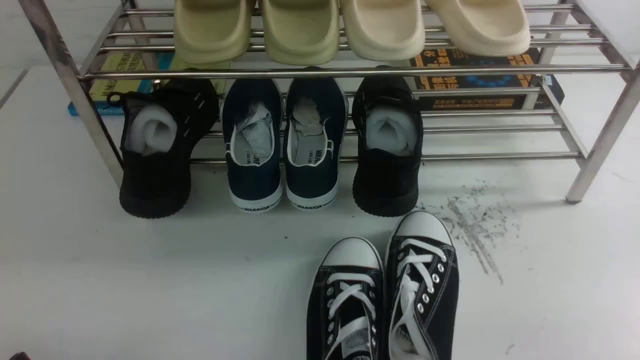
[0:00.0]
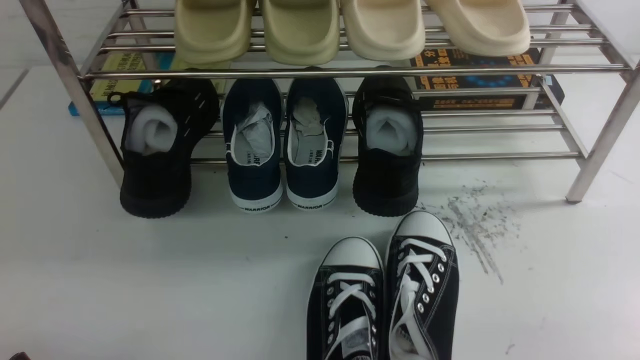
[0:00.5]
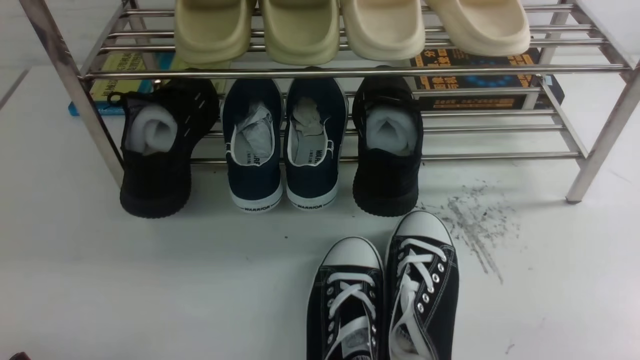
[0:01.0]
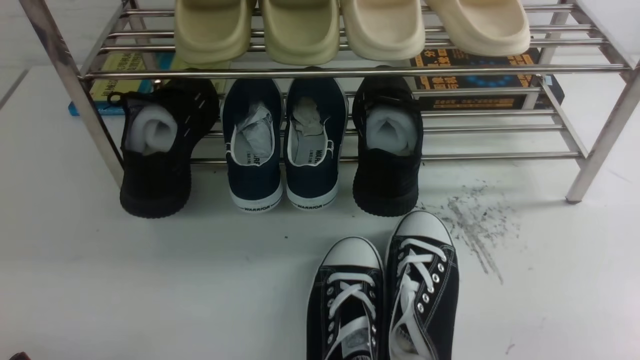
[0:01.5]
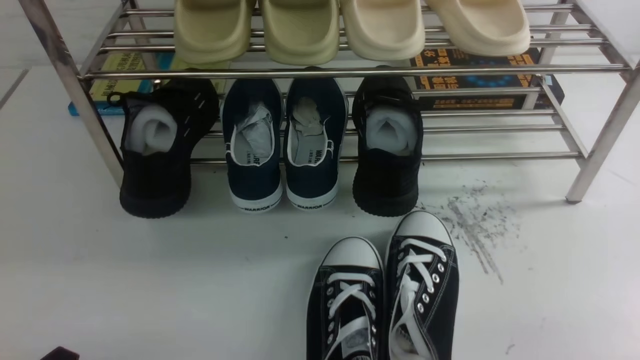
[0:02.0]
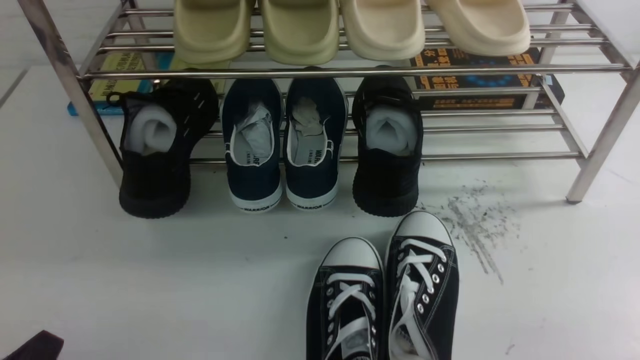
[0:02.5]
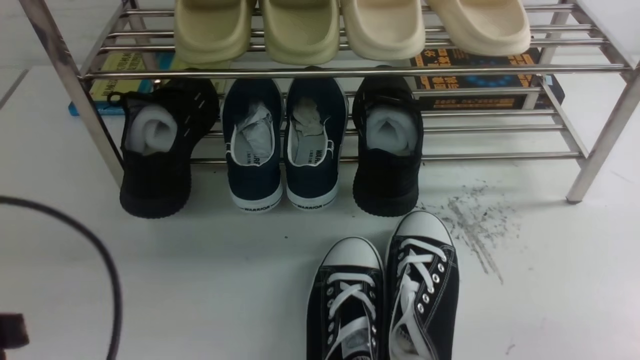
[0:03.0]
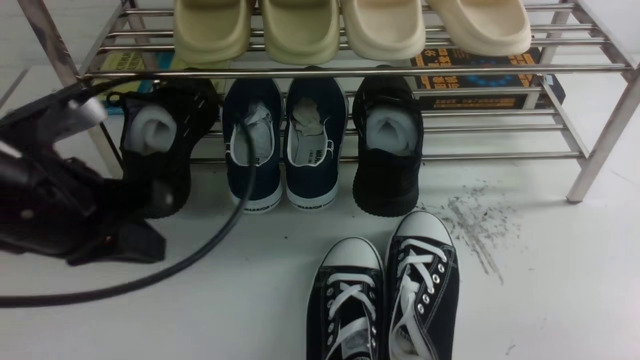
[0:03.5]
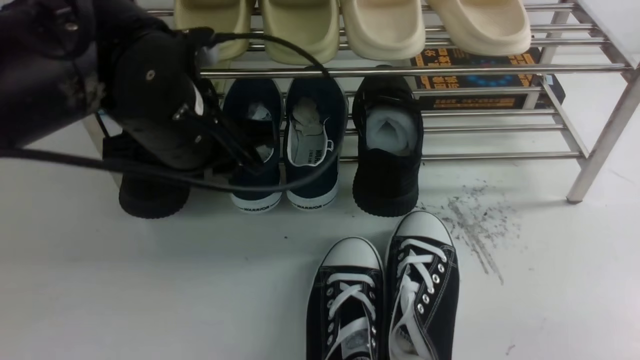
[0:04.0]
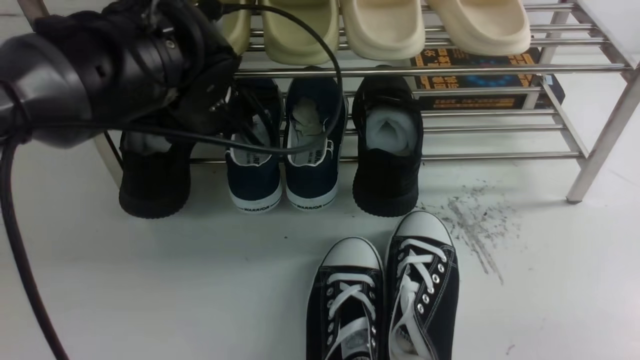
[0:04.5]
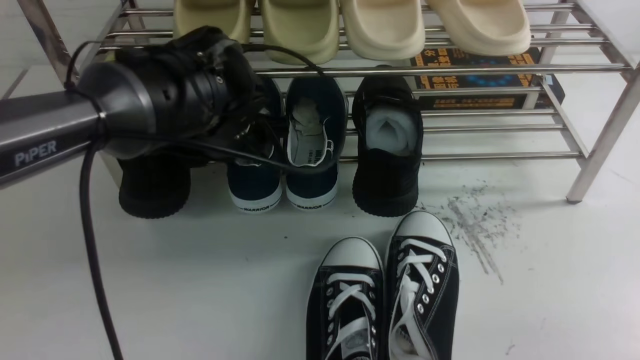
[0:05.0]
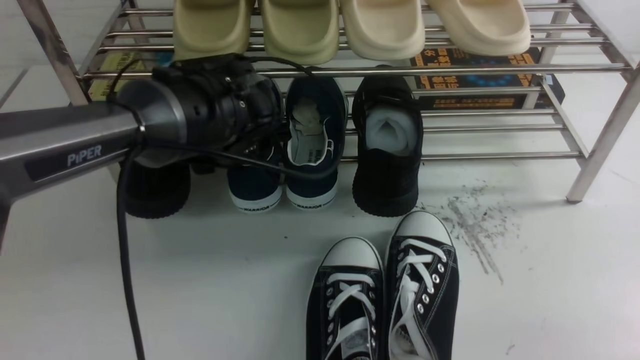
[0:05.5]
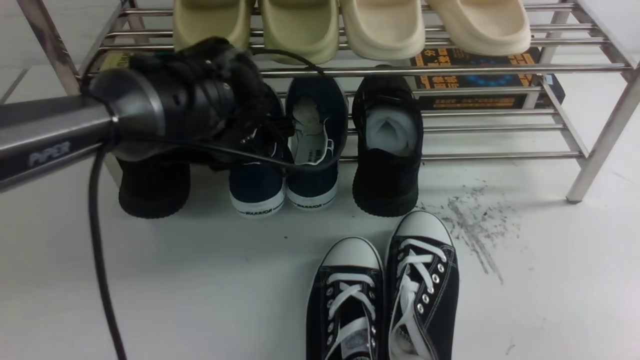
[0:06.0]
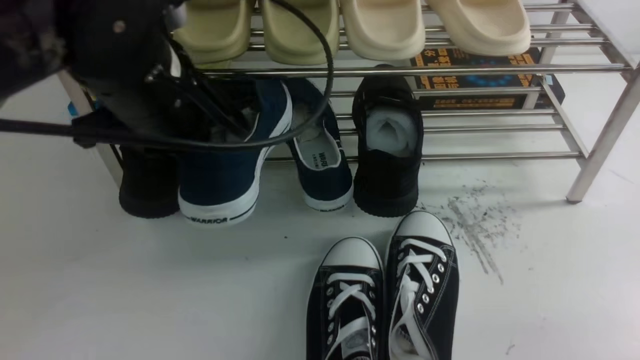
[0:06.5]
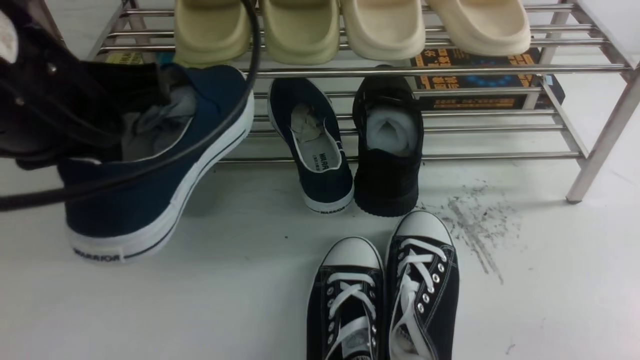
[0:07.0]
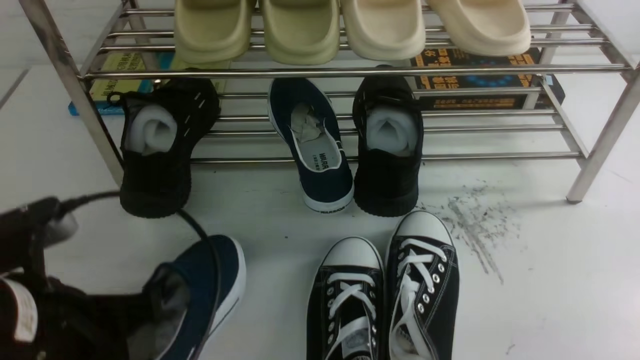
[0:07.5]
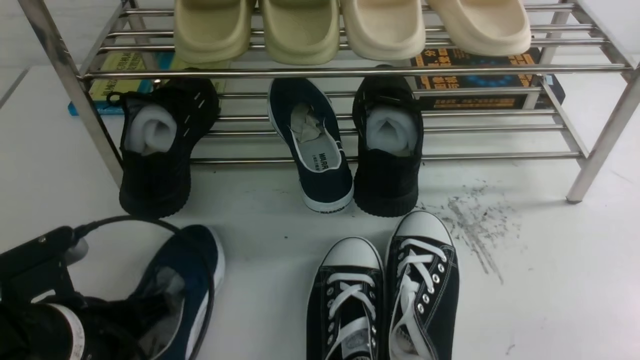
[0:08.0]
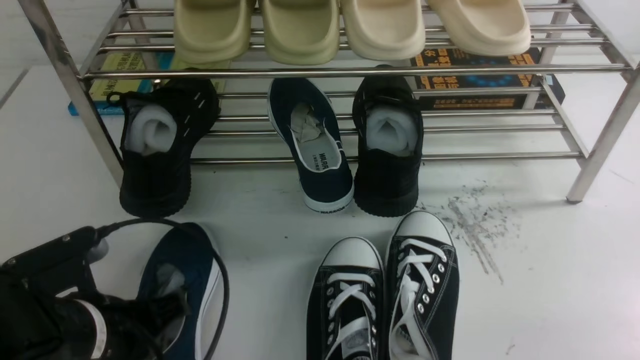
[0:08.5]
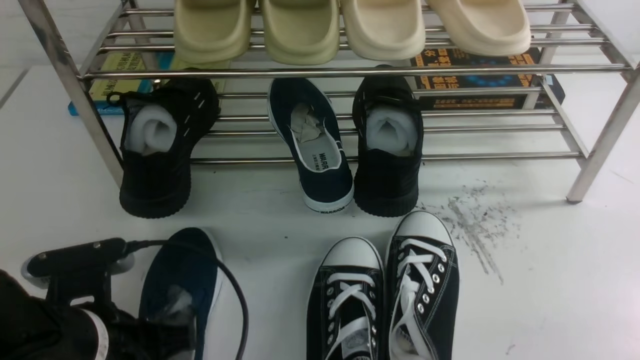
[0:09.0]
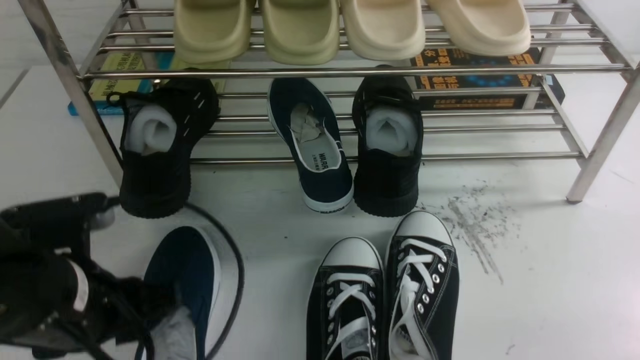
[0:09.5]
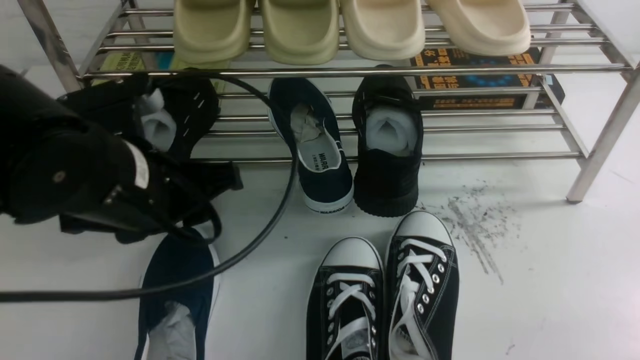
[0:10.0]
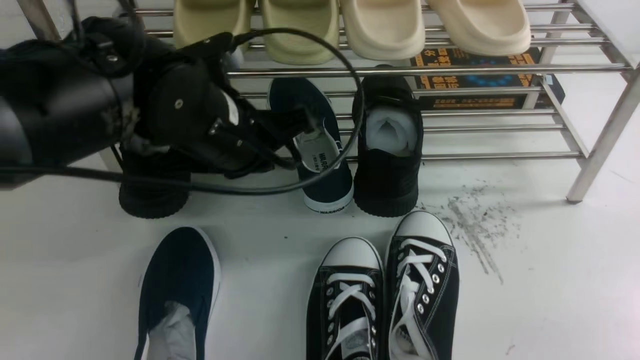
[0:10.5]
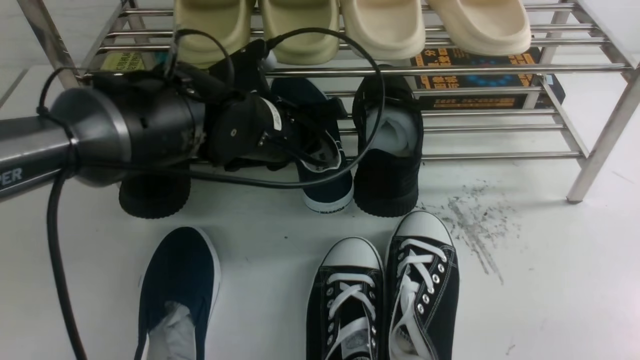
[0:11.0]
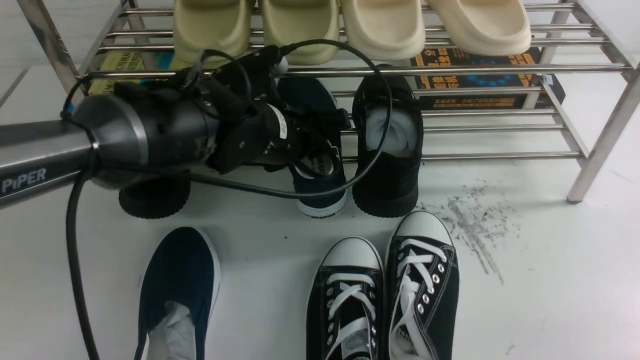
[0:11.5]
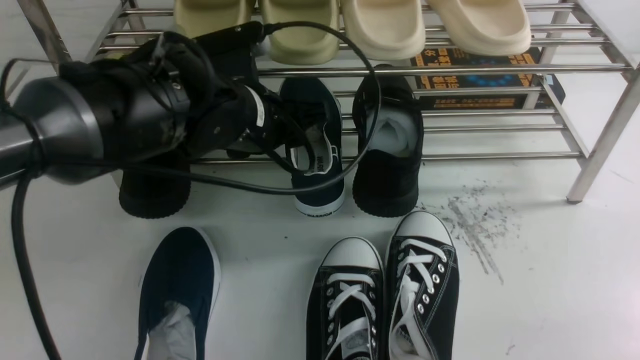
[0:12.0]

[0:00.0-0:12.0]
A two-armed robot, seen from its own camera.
Step, 0:00.0 to 0:06.0: use the left arm to clamp a shoe on the left side of the shoe rack.
Step, 0:06.5 to 0:09.5: Use your left arm to remove the clamped shoe from the shoe rack and put it down.
0:02.0 to 0:04.0: The left gripper moves forward, upward and to the right, some 30 cm, and closes and opens again.
0:04.0 to 0:06.0: The left gripper moves forward and downward, approximately 10 cm, and closes up.
0:06.0 to 0:08.0: The left gripper travels backward and to the left by about 20 cm.
0:08.0 to 0:10.0: The left gripper moves upward, forward and to the right, approximately 15 cm, and opens its fingers.
0:10.0 to 0:12.0: The left gripper goes about 10 cm forward and to the right, and closes and opens again.

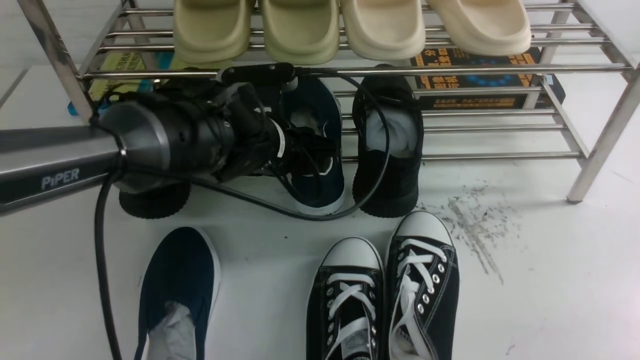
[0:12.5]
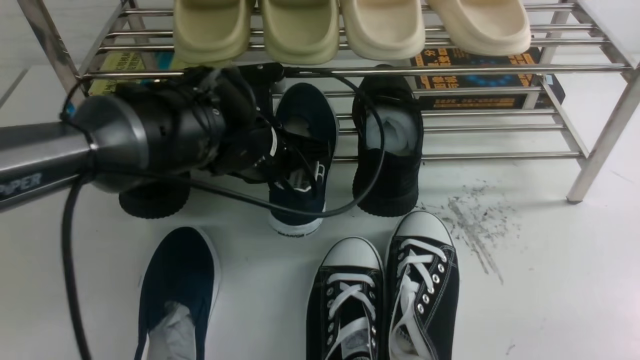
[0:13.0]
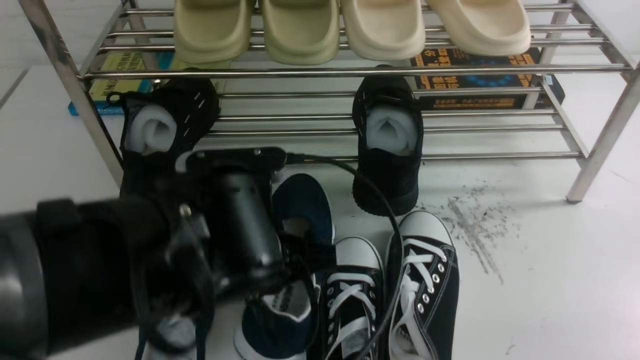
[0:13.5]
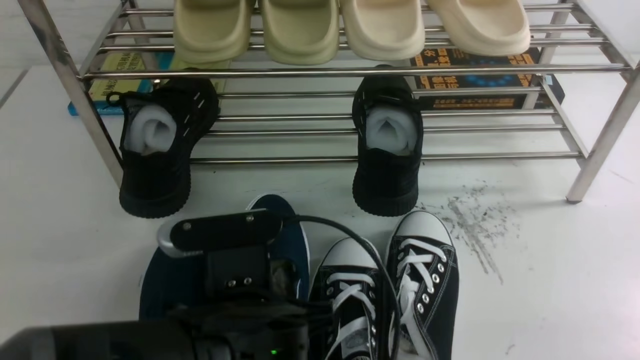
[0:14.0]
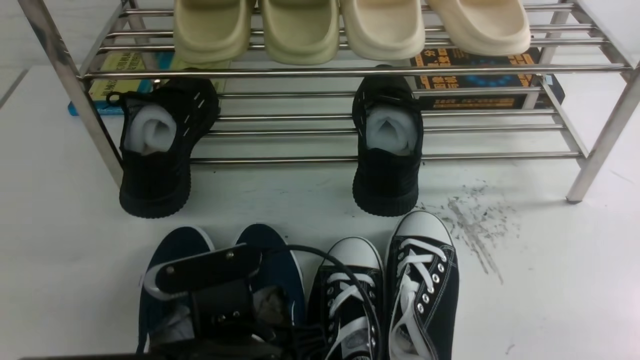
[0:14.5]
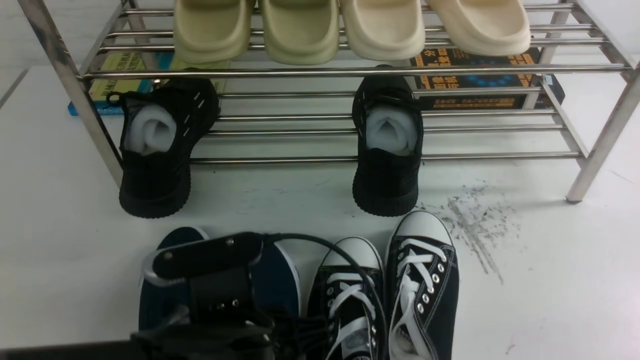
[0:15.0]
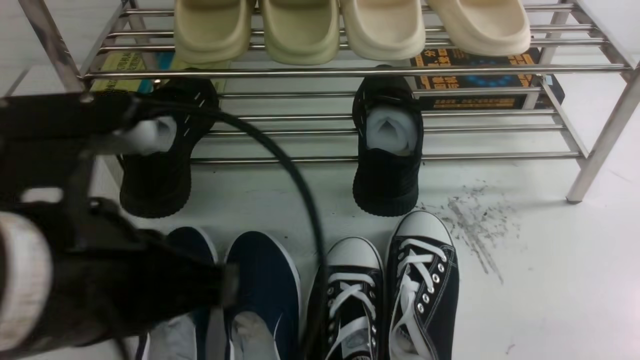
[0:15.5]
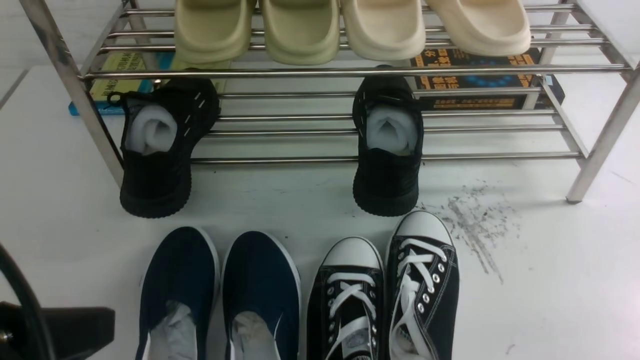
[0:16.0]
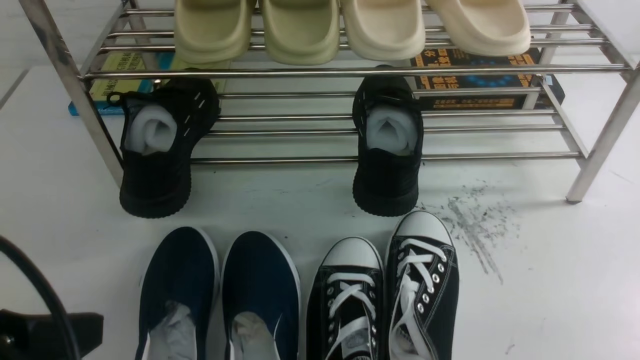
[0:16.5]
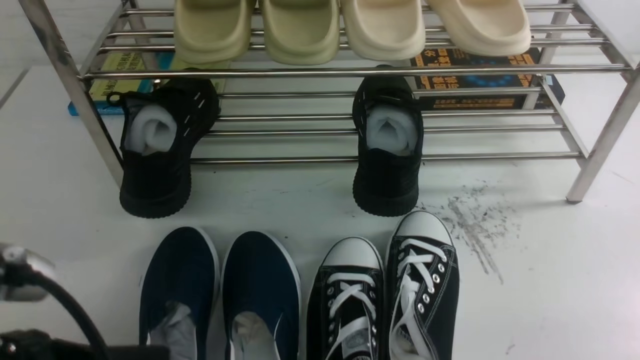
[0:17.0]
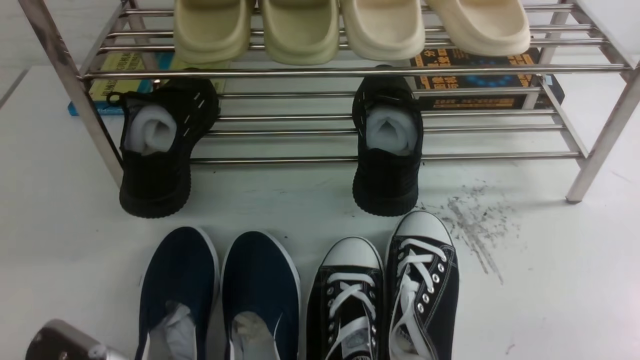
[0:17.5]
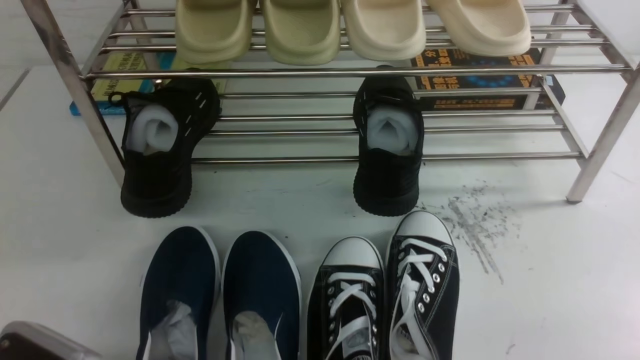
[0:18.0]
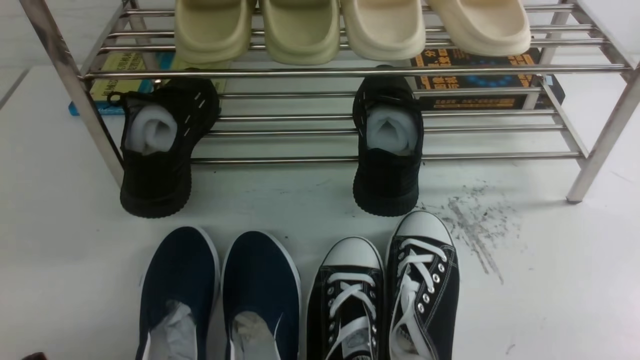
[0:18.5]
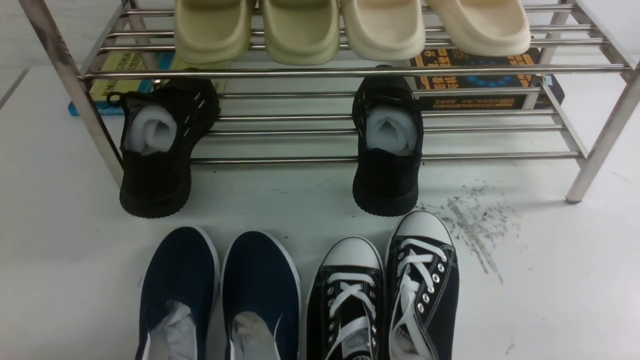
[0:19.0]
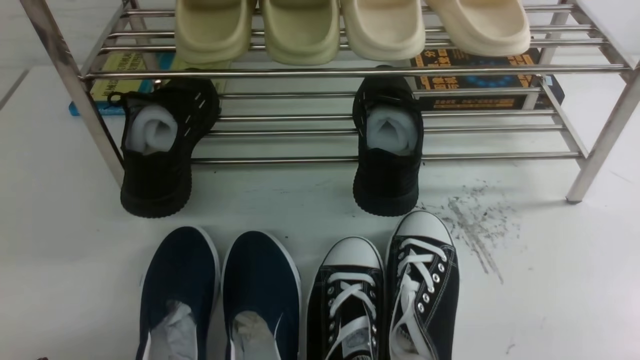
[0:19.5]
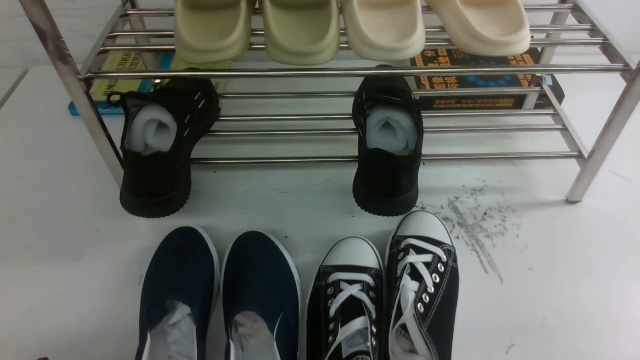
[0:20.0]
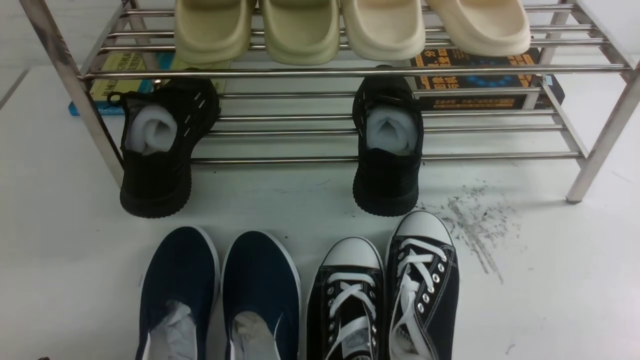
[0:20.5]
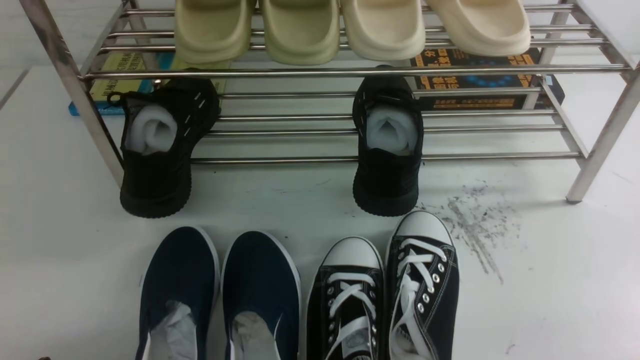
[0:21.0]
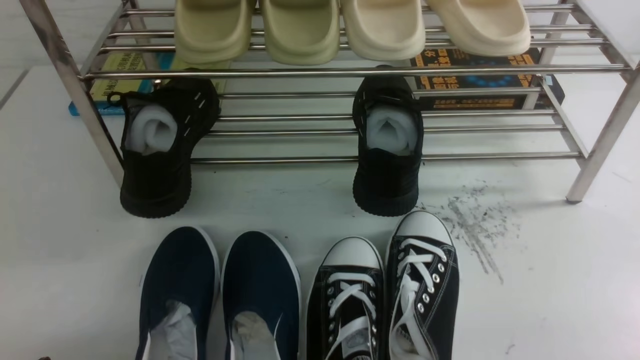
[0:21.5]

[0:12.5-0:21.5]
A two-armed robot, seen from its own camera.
Step, 0:13.5 to 0:15.0: Use your left arm to remove the clamped shoe from the shoe rack and put it down.
0:12.5 to 0:14.5: The left gripper heads backward, covering roughly 20 cm, and closes its fingers.
0:14.5 to 0:17.0: The left gripper moves to the left, upward and backward, roughly 15 cm, and opens, then closes again.
0:17.0 to 0:19.5: The left gripper moves downward and to the left, roughly 15 cm.
0:19.5 to 0:21.5: The two grippers keep their place.
